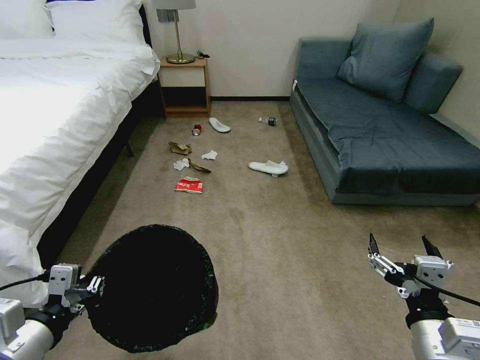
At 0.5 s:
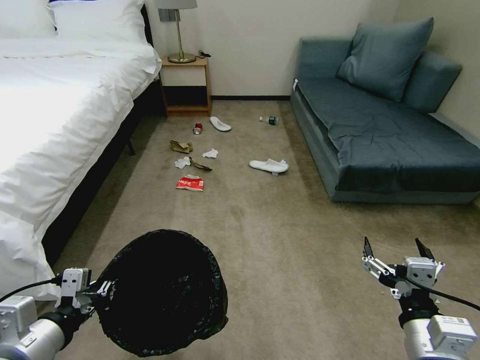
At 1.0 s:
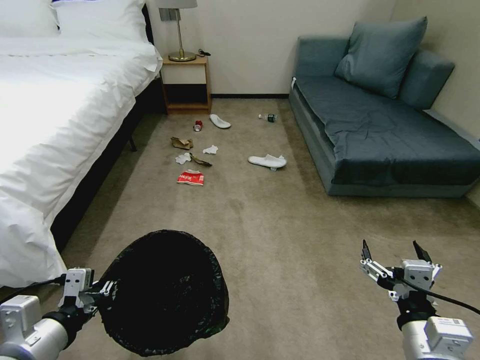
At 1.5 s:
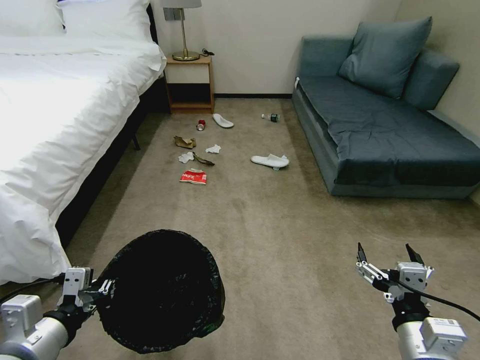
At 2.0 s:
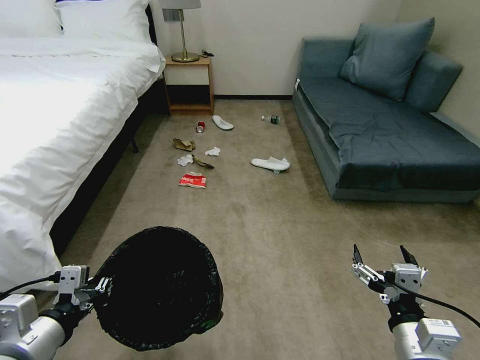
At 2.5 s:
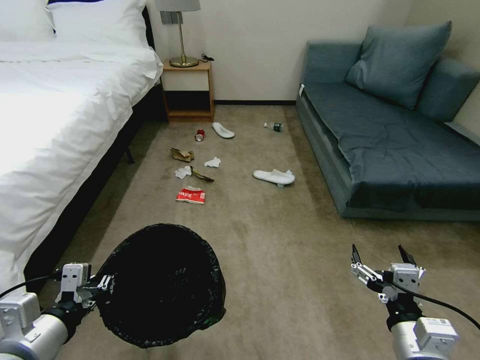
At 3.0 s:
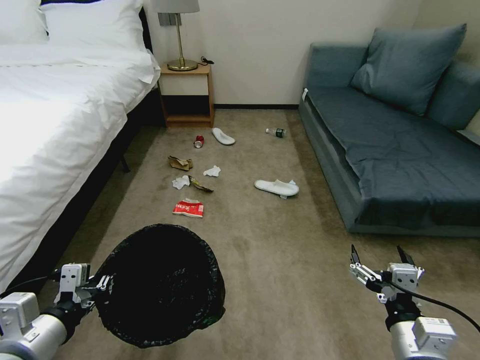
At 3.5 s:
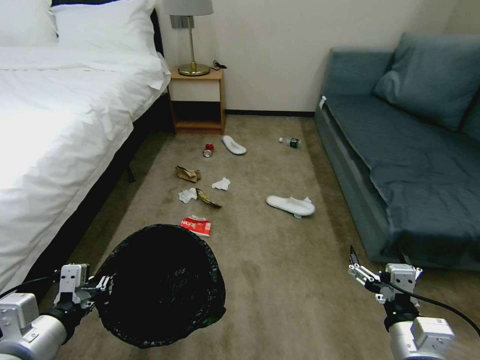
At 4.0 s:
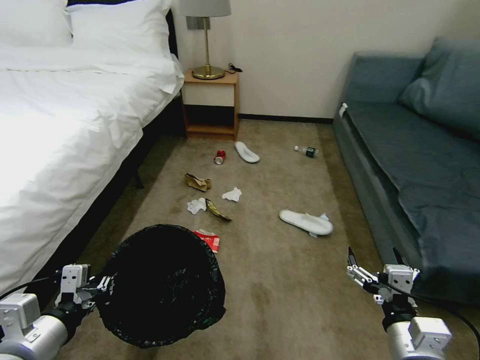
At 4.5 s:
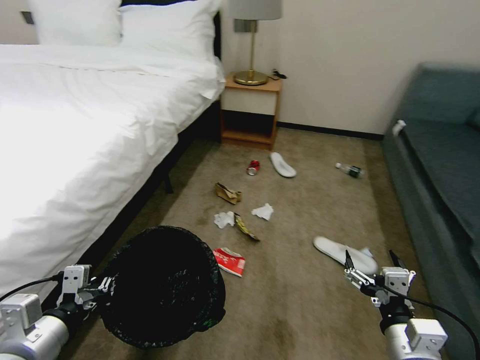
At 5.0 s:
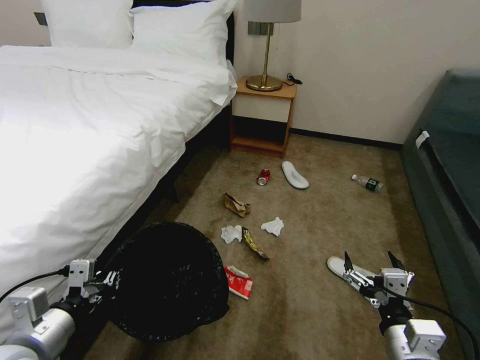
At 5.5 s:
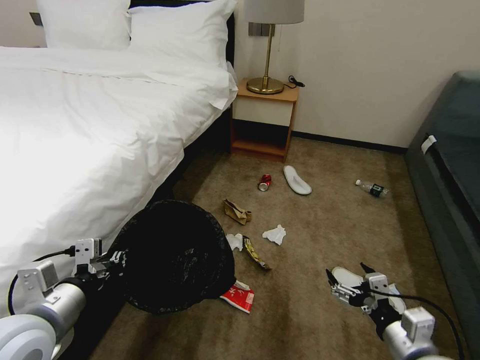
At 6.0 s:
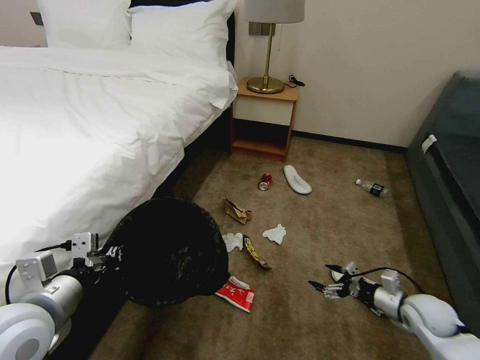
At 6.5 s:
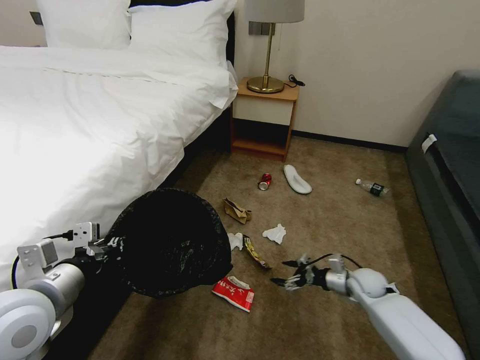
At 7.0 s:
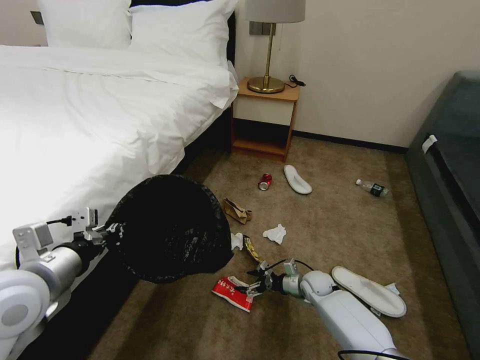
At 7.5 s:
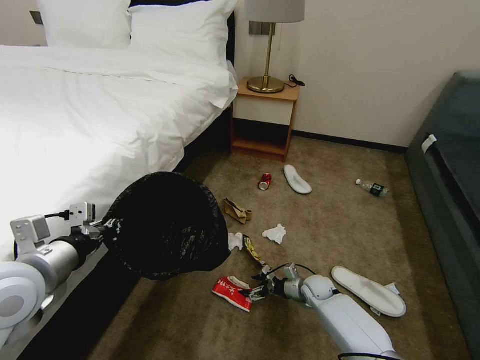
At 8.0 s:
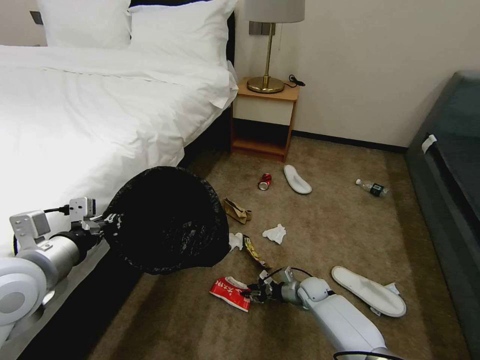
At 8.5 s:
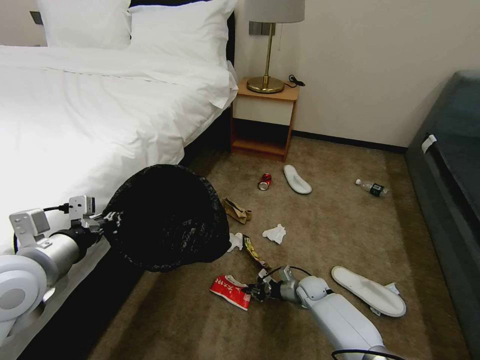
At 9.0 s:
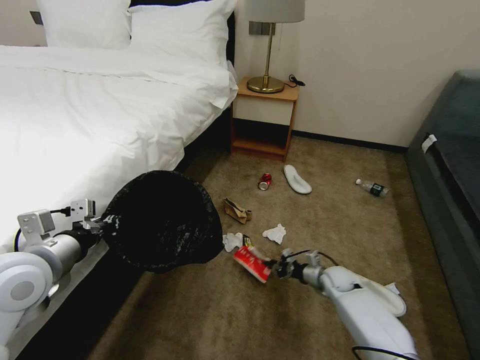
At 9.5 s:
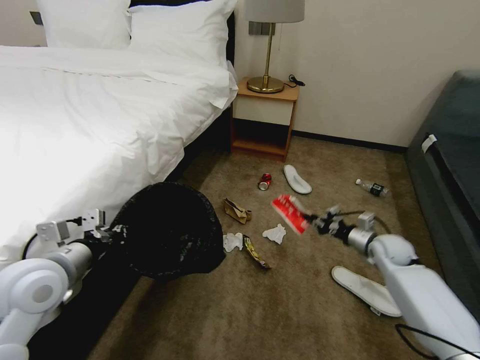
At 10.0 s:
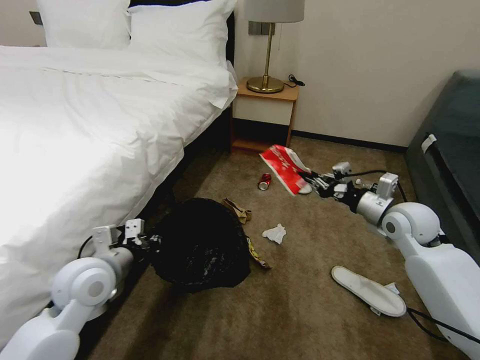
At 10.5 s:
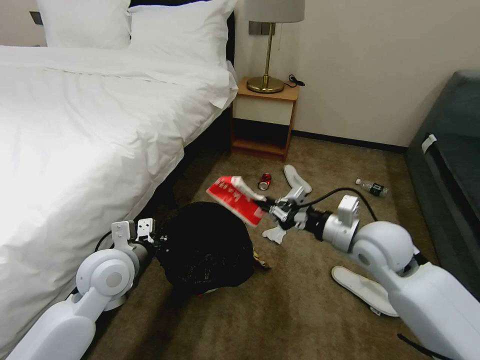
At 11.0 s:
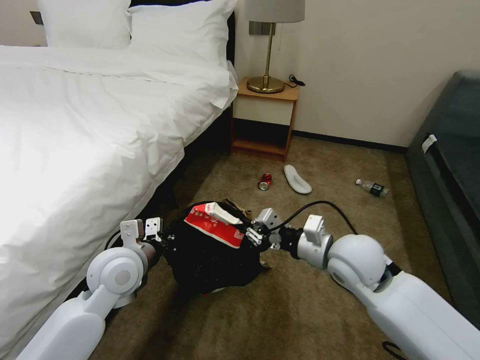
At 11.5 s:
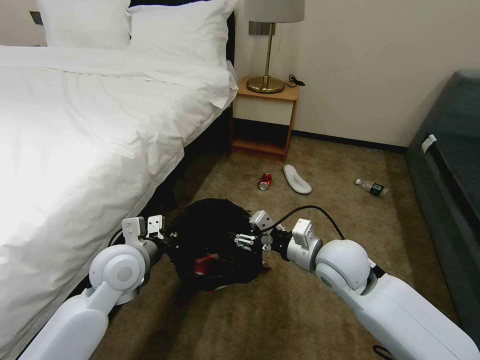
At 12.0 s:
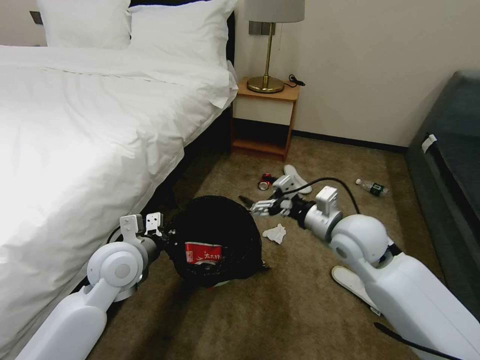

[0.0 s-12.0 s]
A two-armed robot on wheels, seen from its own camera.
Task of the whole recording: Pick up the trash bin, then pick up the garbage on the floor and place it into the trash bin.
4.0 to 6.0 s: The left gripper moves forward, roughly 5 cm; the right gripper goes about 25 cm to the right, forward and downward.
6.0 to 8.0 s: The left gripper ends up about 5 cm from where it was. Meanwhile the right gripper travels to the left, downward and forward by roughly 25 cm, and closes up.
8.0 to 10.0 s: The right gripper is displaced upward by about 35 cm, and closes; the left gripper shifts roughly 10 cm downward and forward.
10.0 to 12.0 s: The right gripper travels to the left by roughly 15 cm, and opens. The left gripper moves roughly 5 cm.

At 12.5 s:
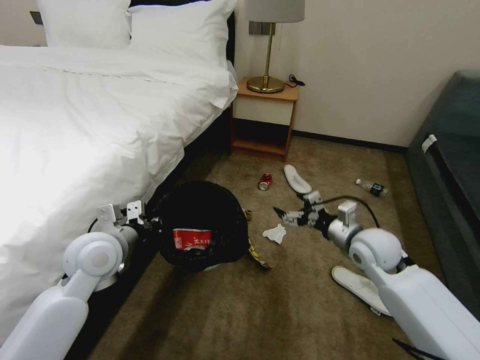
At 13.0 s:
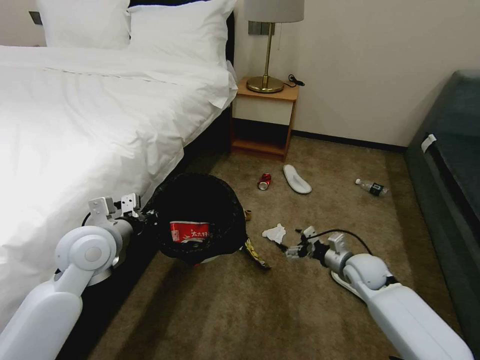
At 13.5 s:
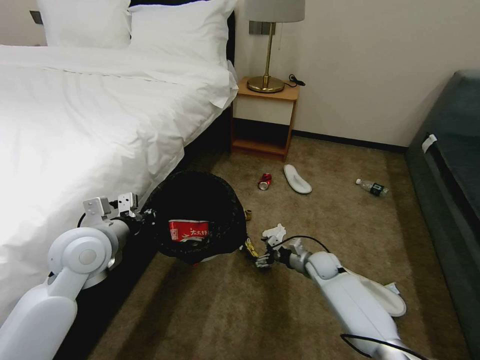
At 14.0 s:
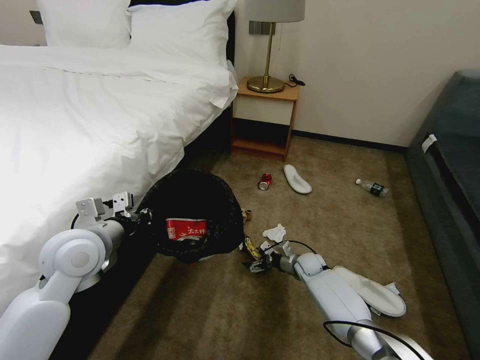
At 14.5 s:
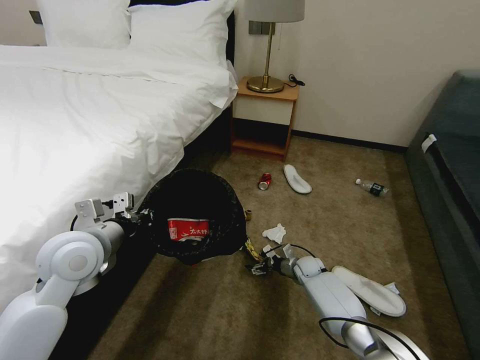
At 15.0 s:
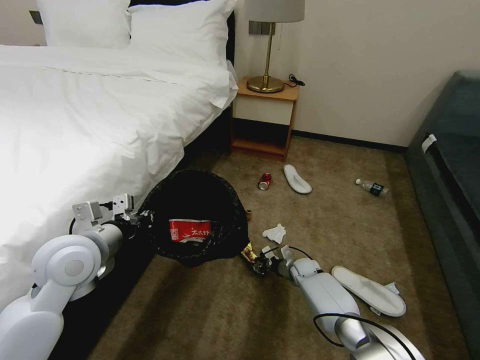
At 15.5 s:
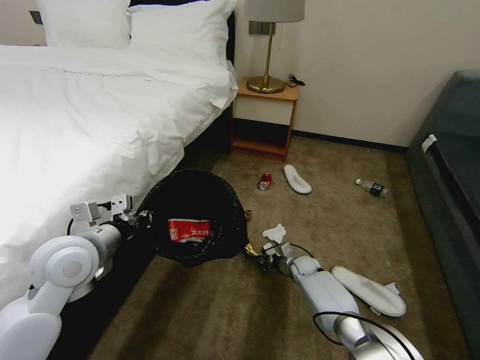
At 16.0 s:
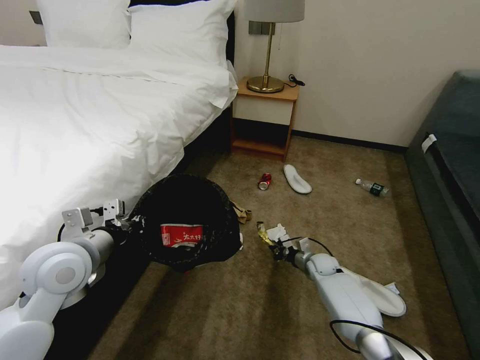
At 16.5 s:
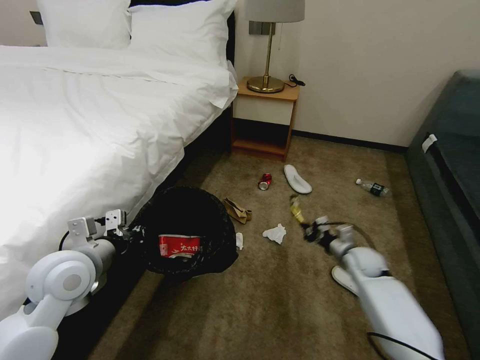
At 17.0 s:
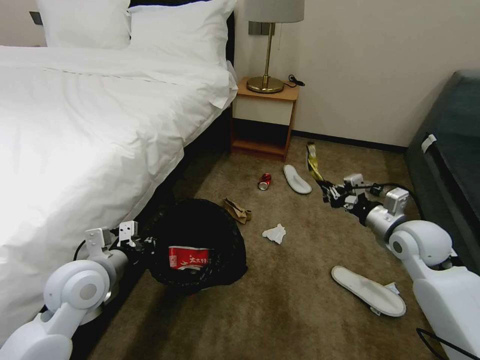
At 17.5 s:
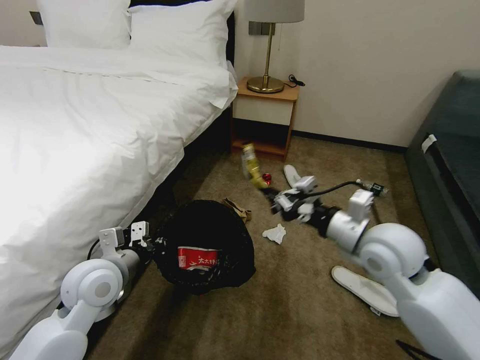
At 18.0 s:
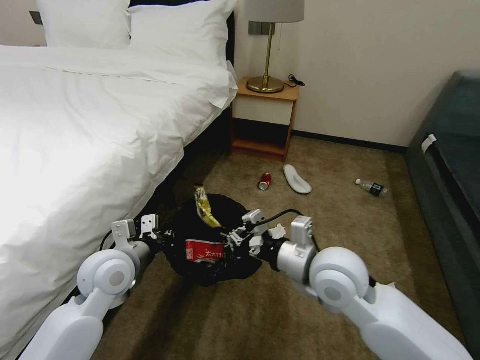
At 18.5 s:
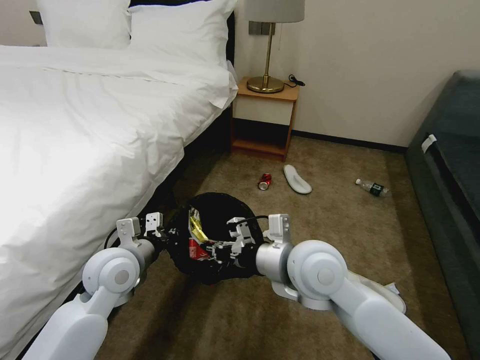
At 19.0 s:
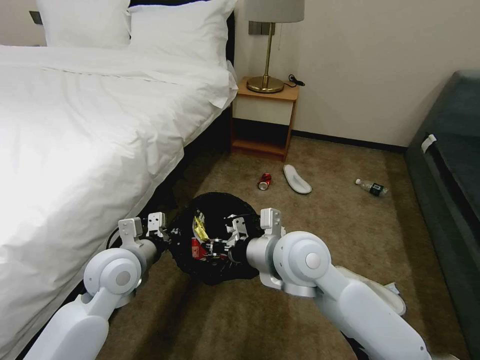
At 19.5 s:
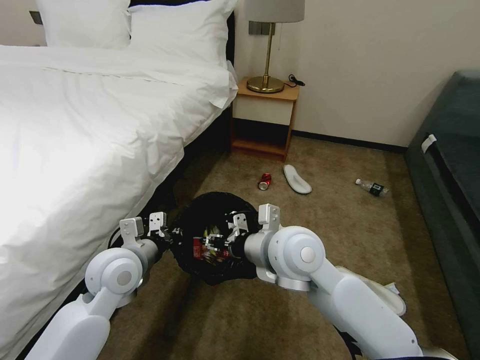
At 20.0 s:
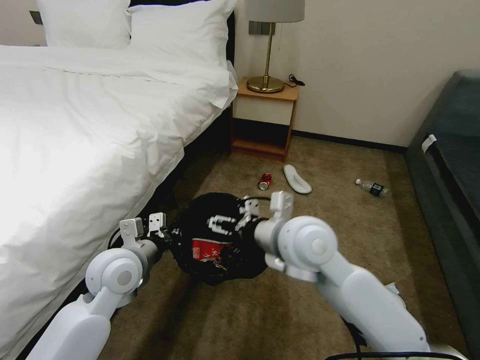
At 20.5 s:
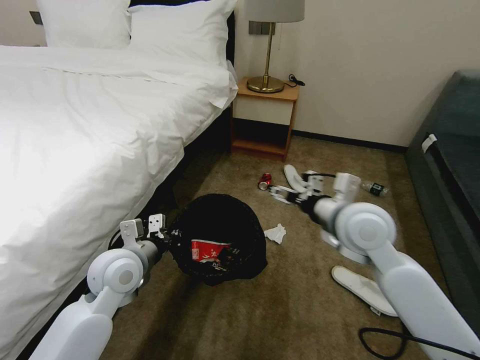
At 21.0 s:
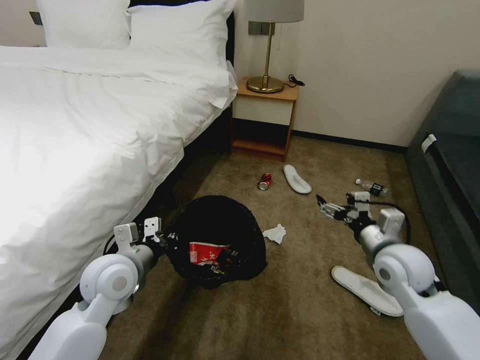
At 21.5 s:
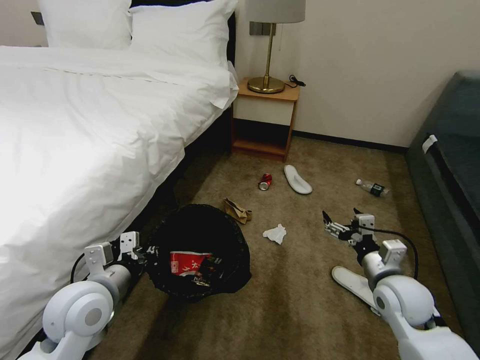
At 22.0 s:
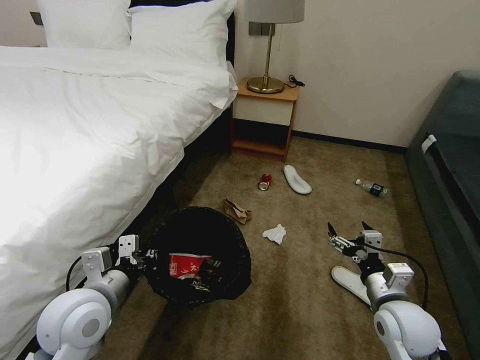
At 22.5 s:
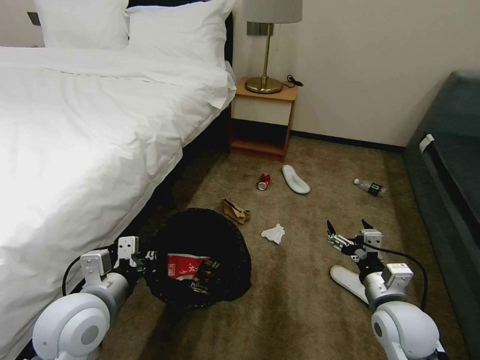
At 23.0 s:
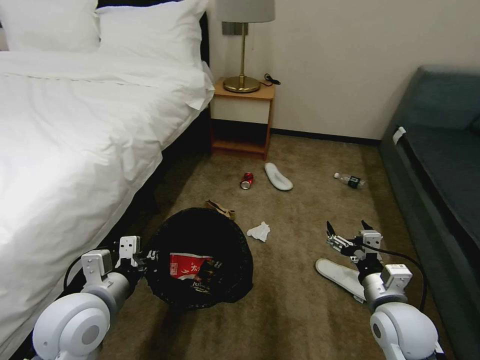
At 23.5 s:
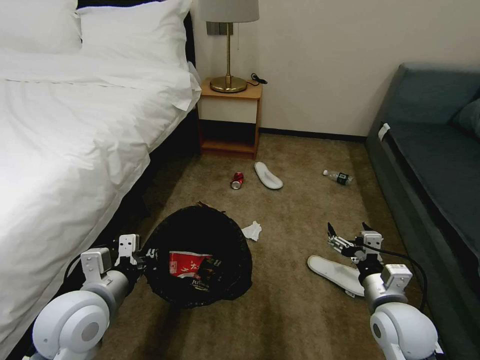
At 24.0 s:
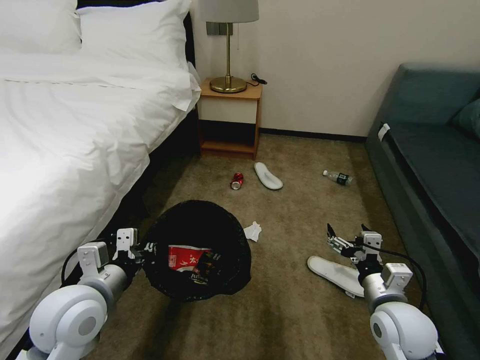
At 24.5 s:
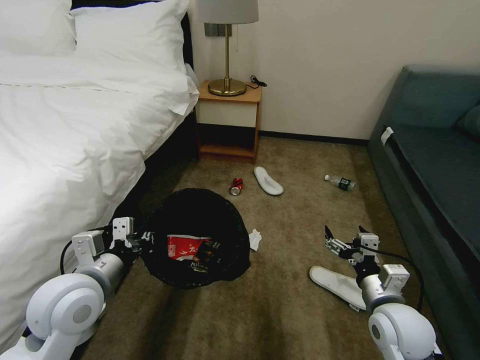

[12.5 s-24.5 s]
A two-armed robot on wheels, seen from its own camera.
Task of the whole recording: Pick up the trash bin, then pick up the garbage on the floor and place it into the trash bin.
12.5 to 14.5 s: The right gripper moves downward, about 30 cm.
14.5 to 16.5 s: The right gripper moves upward and to the right, about 15 cm, and closes its fingers.
16.5 to 18.5 s: The left gripper shifts about 5 cm to the right. The right gripper moves upward, to the left and backward, approximately 35 cm.
18.5 to 20.5 s: The right gripper travels to the right and forward by approximately 10 cm, and opens its fingers.
20.5 to 22.5 s: The left gripper is displaced backward by approximately 10 cm. Meanwhile the right gripper heads downward, backward and to the right, covering roughly 20 cm.

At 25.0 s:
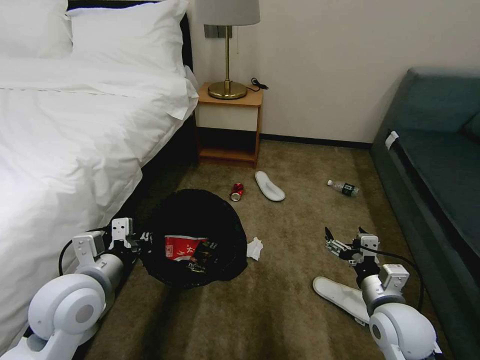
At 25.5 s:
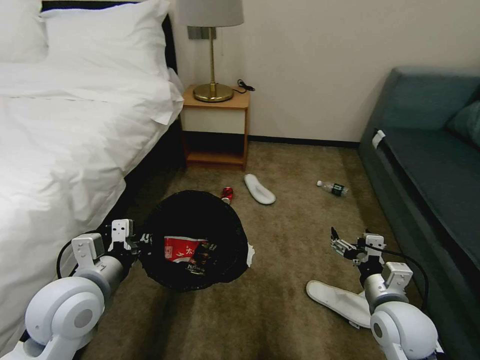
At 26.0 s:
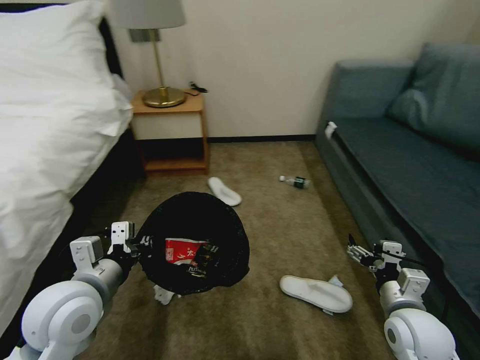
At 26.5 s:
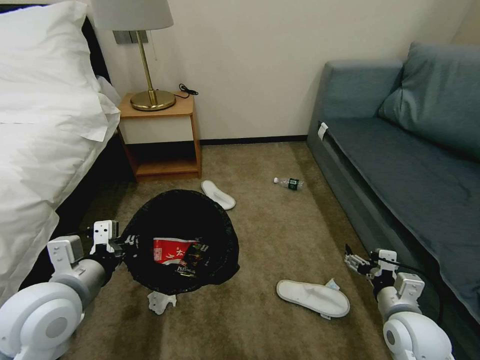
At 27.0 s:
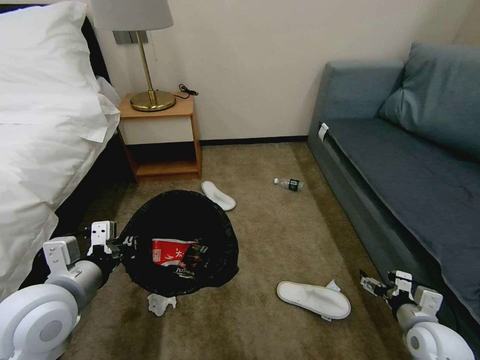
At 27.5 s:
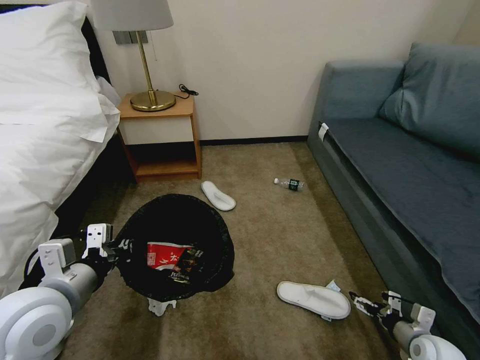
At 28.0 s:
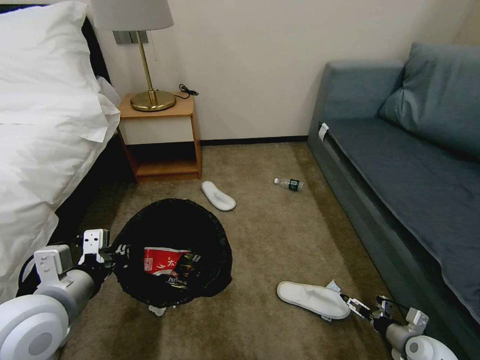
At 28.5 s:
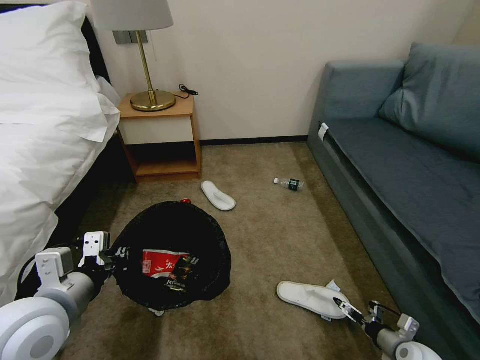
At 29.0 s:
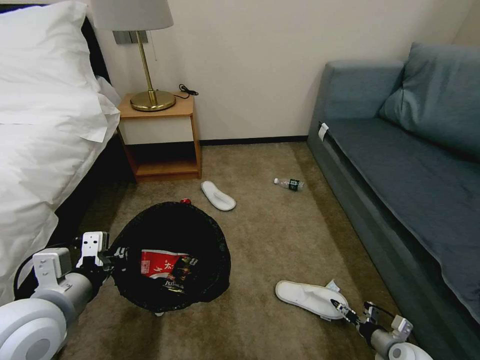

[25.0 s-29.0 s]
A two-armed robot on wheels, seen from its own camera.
Task of the whole recording: Pick up the trash bin, then pick up the garbage on the floor and place it into the trash bin.
25.0 to 27.0 s: The right gripper shifts roughly 10 cm to the right and downward.
27.0 to 29.0 s: The right gripper travels downward by some 15 cm, and closes its fingers.
